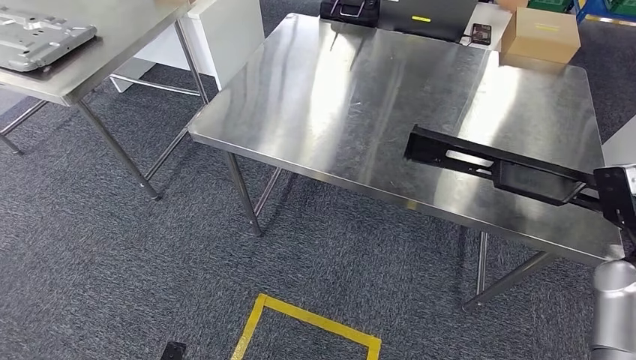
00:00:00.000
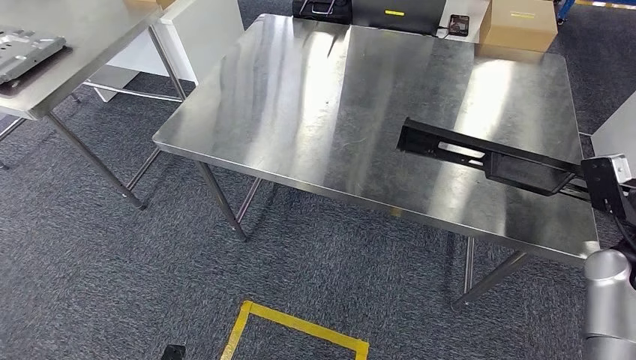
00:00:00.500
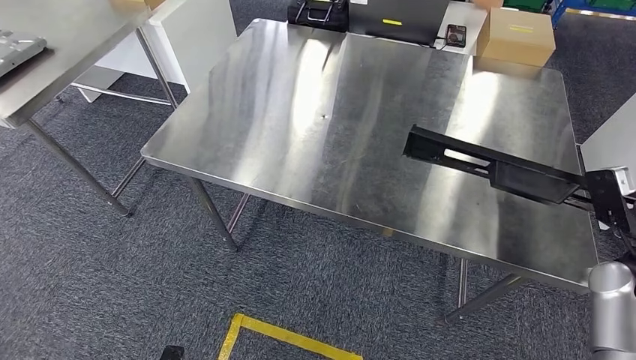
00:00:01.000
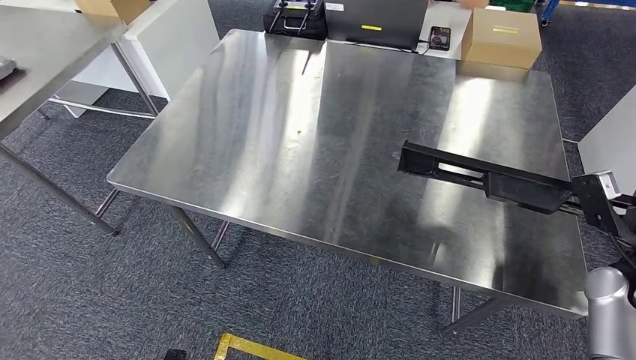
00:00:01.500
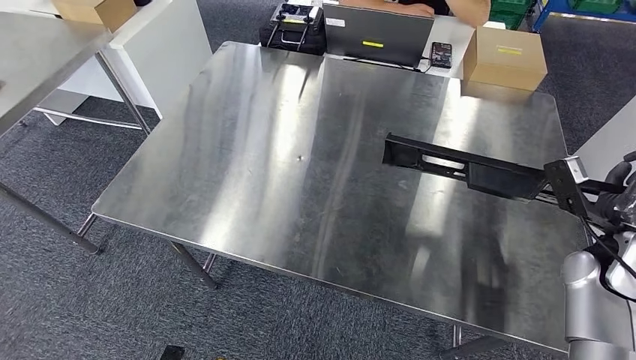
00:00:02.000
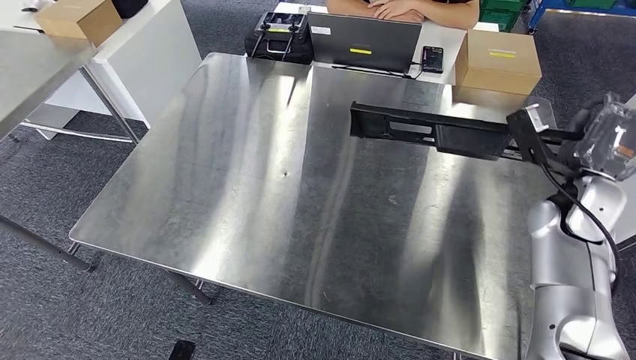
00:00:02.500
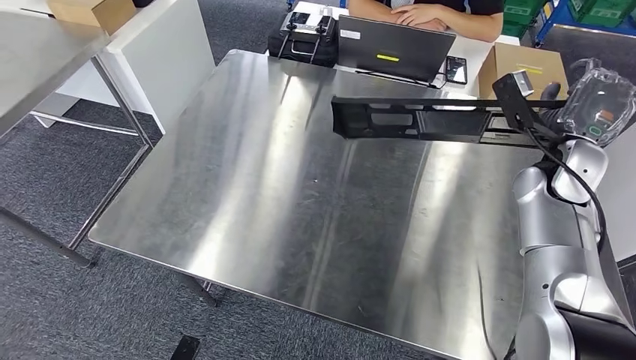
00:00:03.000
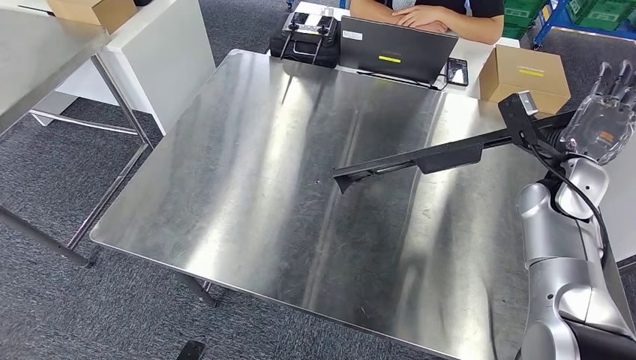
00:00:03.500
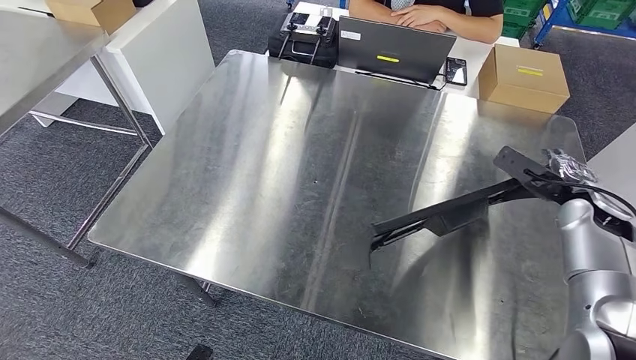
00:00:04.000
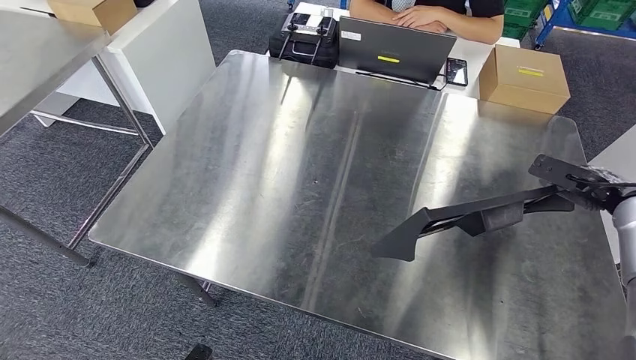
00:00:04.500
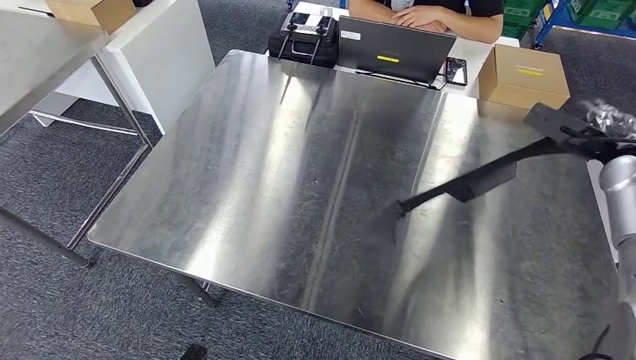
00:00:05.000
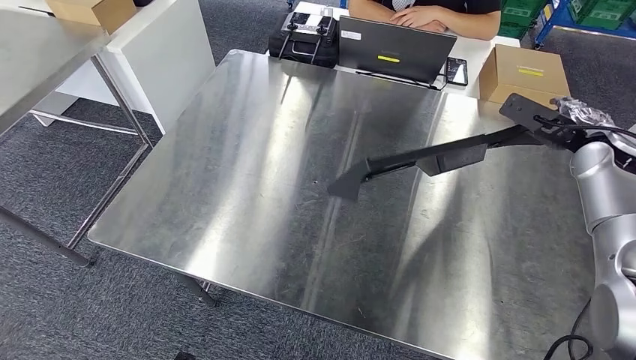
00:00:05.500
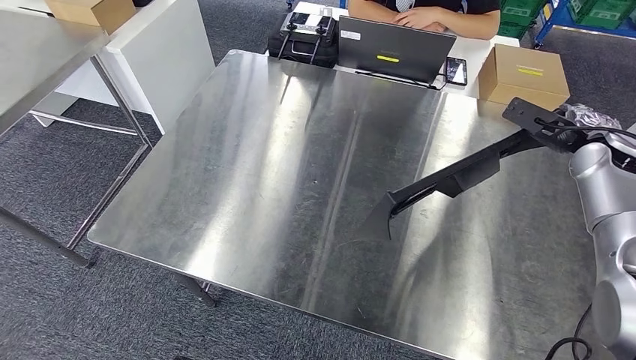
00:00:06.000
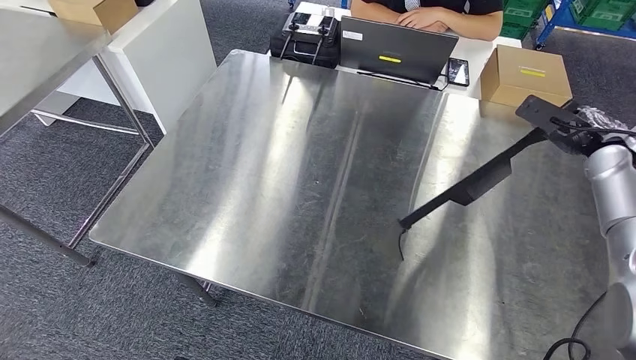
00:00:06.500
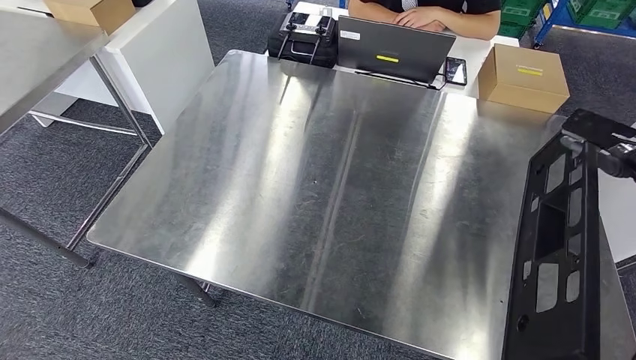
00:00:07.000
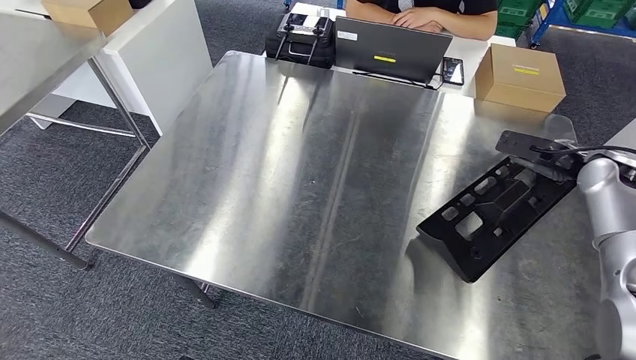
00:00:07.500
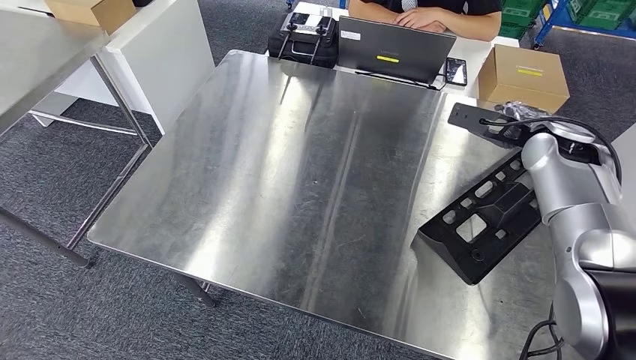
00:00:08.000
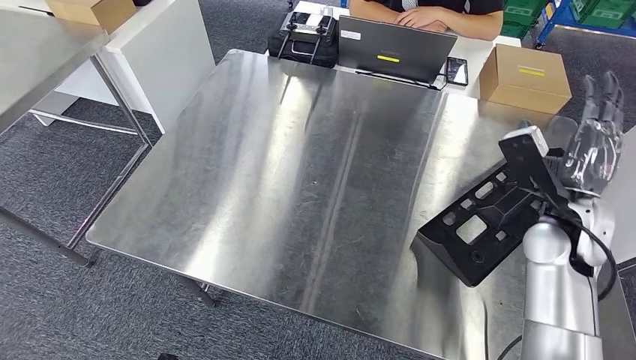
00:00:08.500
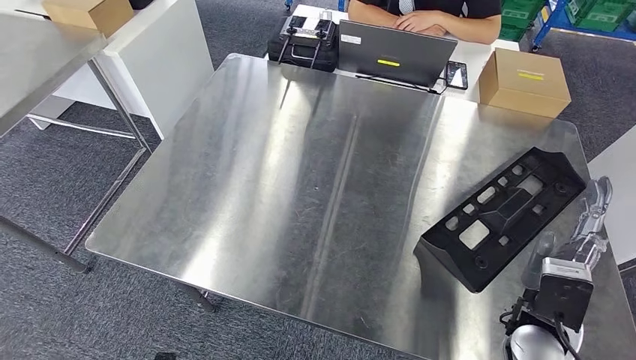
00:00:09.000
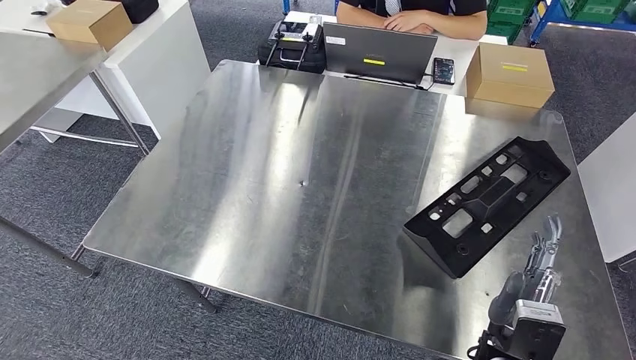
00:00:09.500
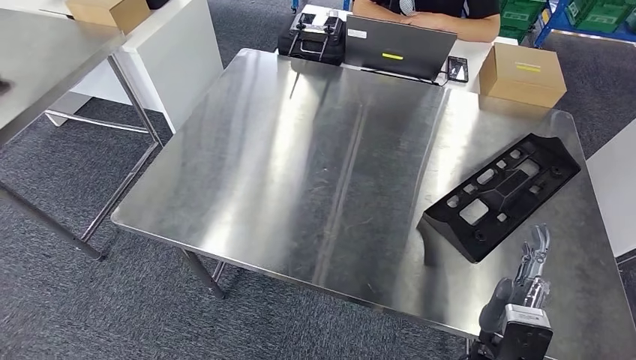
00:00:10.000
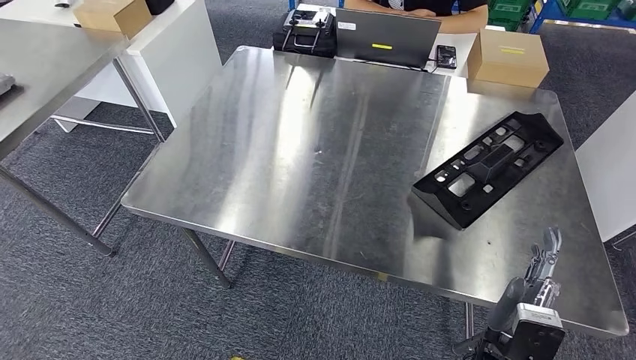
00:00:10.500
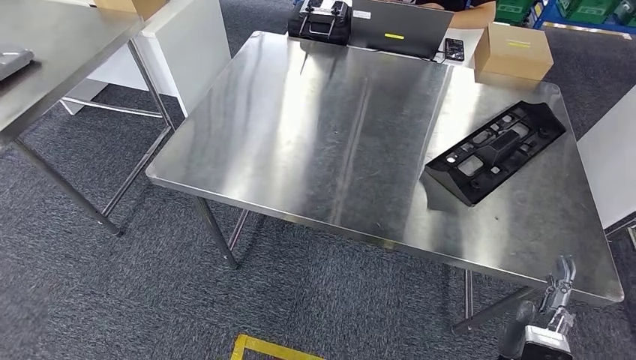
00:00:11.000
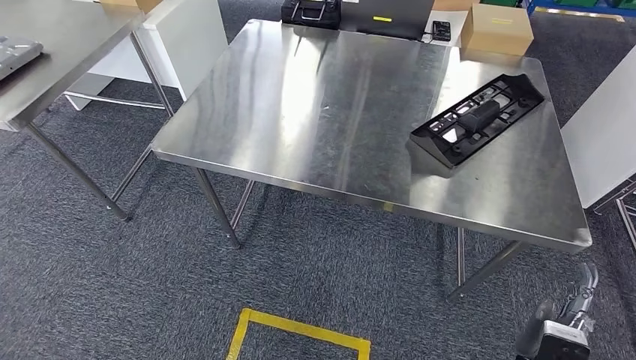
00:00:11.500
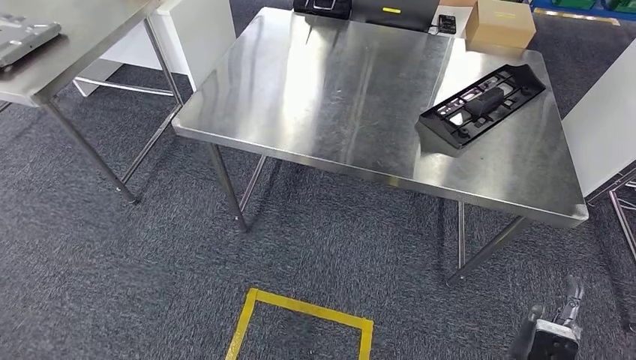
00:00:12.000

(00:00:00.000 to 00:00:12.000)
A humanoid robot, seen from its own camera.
Step, 00:00:00.000 - 00:00:11.000: Insert the large material into the corresponding slot on the workbench.
00:00:04.000 - 00:00:06.000: The right hand shifts approximately 10 cm upward.
00:00:06.000 - 00:00:08.000: The right hand heads to the left, covering roughly 10 cm.

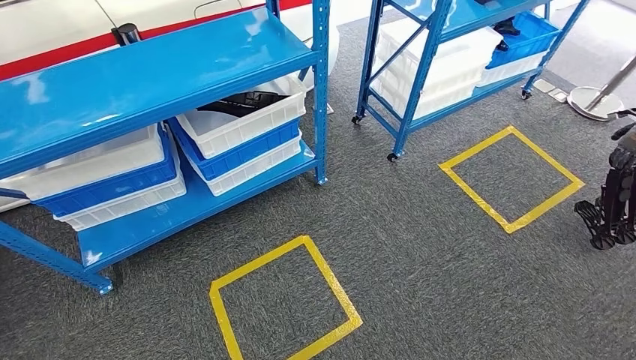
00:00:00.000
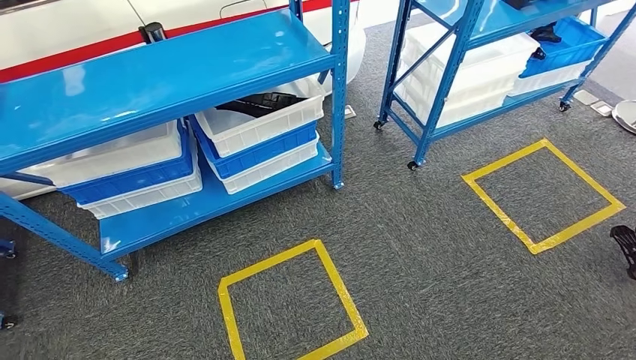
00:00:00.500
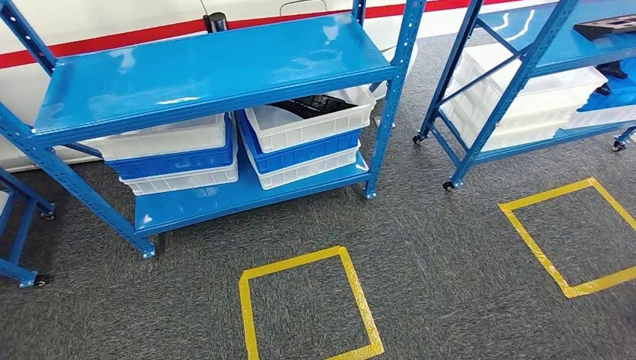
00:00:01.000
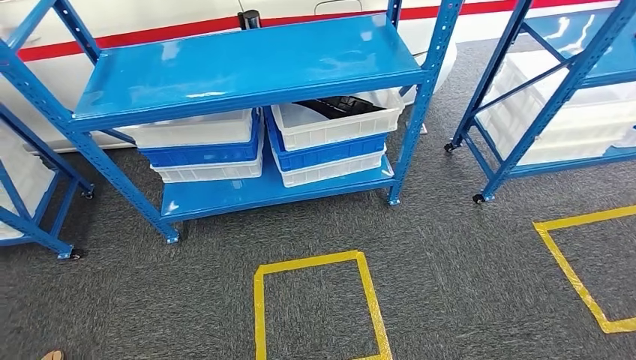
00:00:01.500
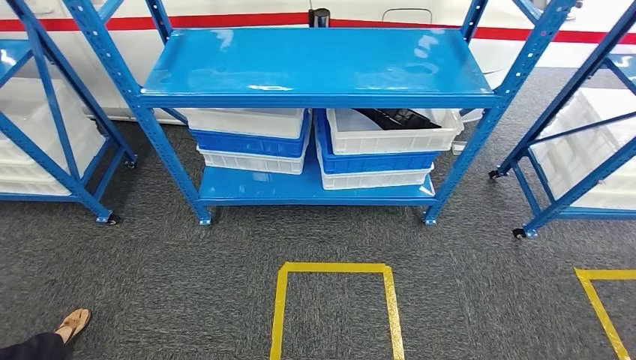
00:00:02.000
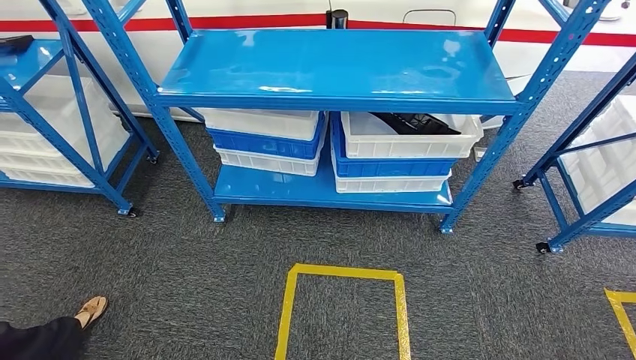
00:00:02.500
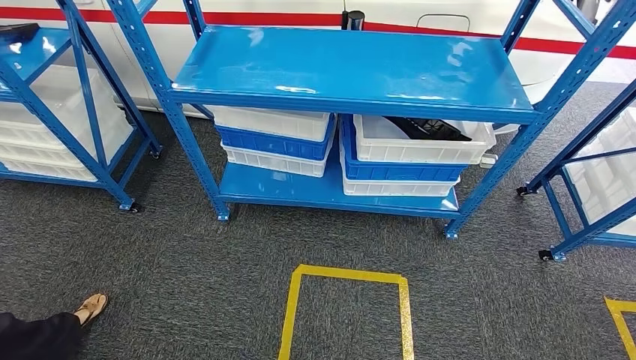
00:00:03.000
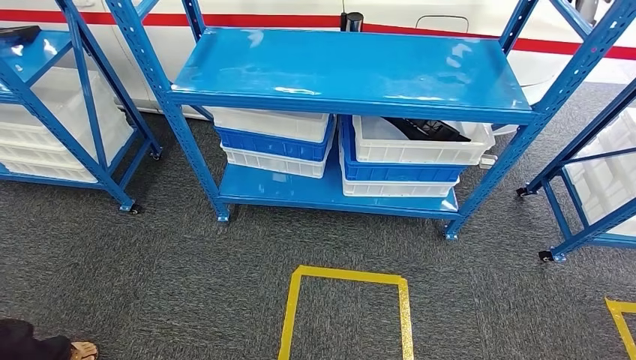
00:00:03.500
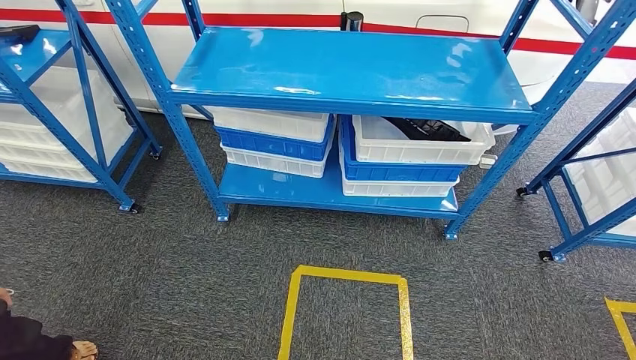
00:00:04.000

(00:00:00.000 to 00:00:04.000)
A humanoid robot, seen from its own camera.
Step, 00:00:00.000 - 00:00:04.000: Move to the initial position of the shelf.

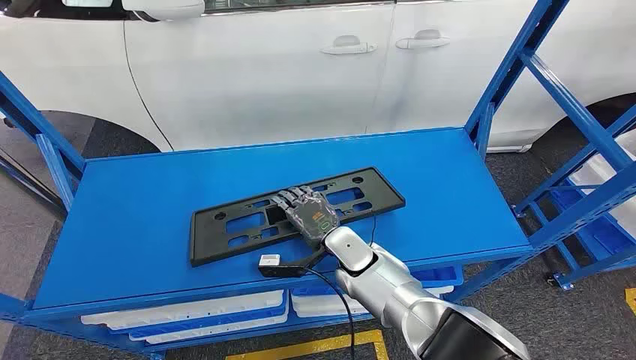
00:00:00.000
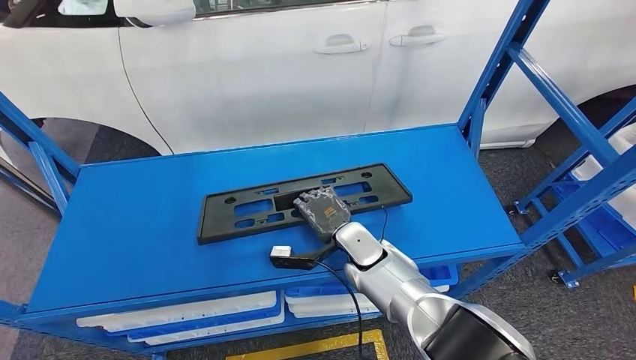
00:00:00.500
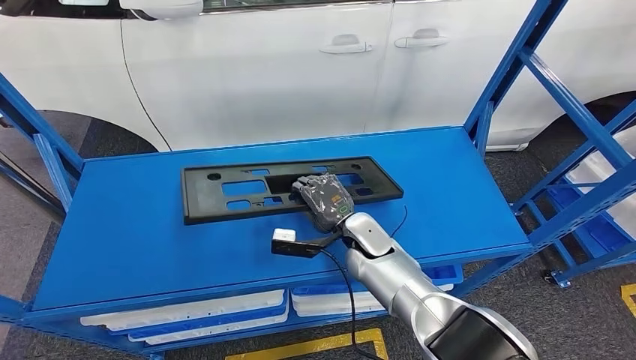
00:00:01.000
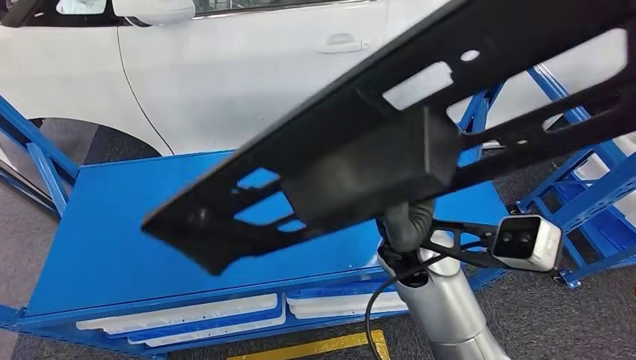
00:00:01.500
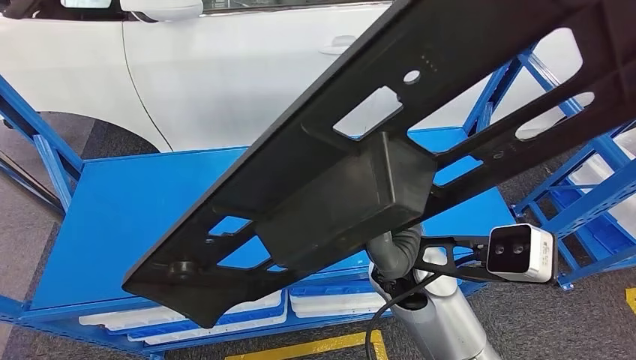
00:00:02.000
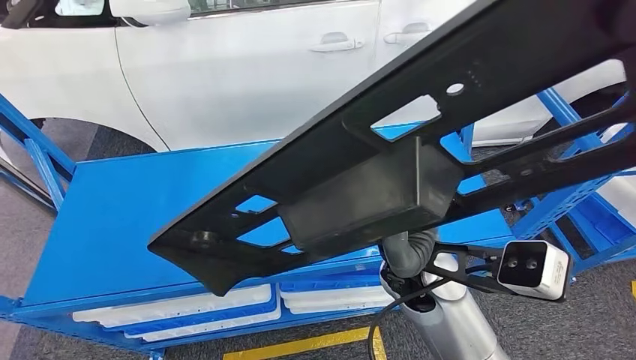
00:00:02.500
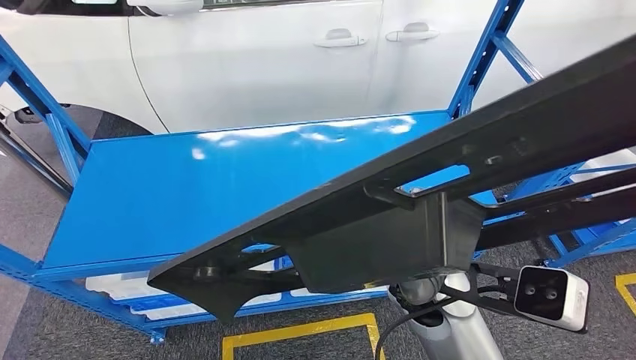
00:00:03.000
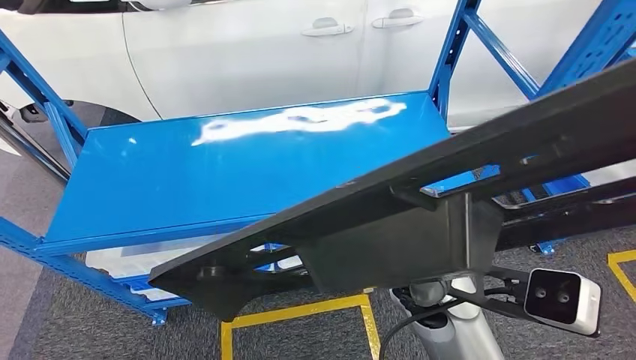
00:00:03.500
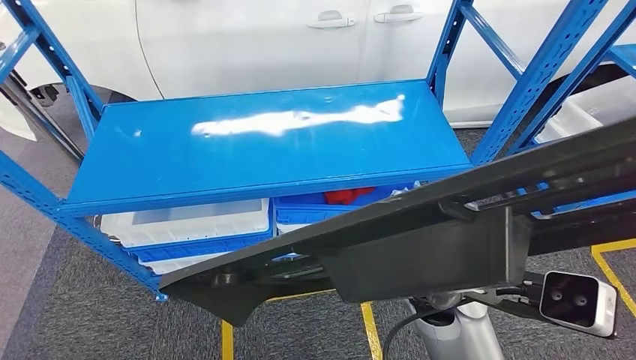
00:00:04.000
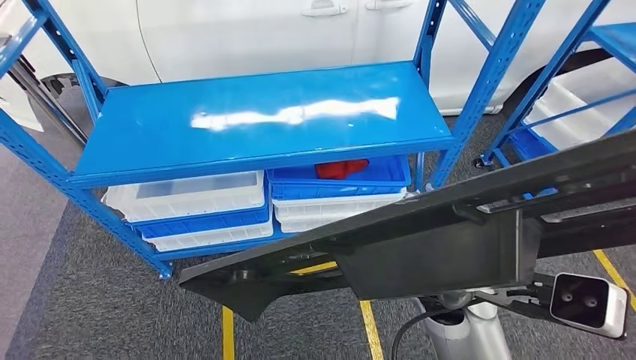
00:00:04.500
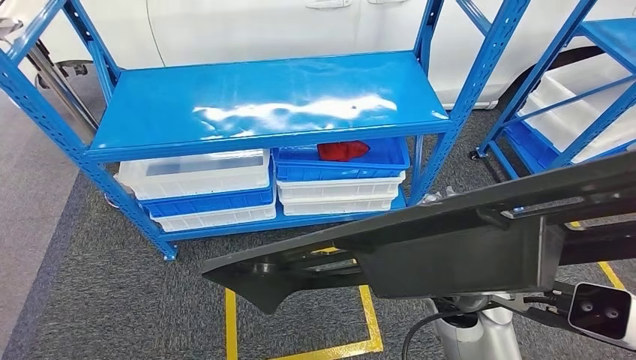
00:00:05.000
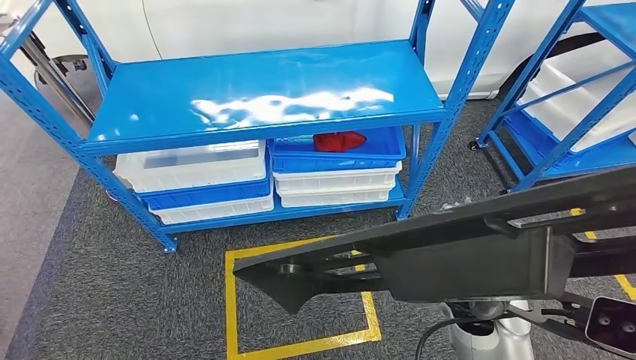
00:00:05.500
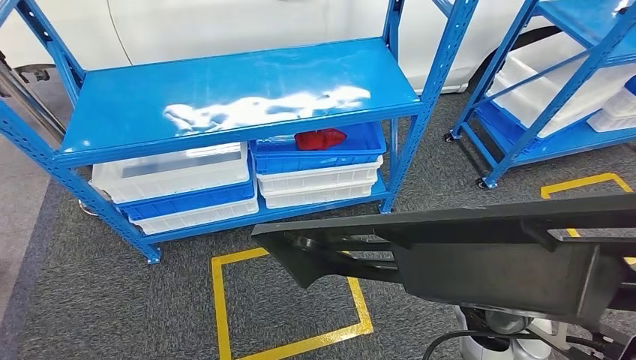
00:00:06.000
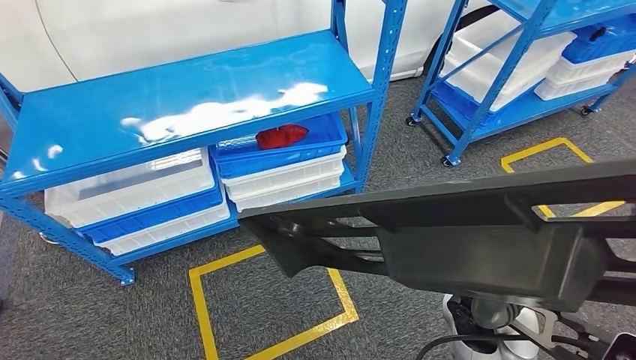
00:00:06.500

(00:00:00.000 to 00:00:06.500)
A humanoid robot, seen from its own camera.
Step, 00:00:00.000 - 00:00:02.000: Pick up the large material from the shelf.
